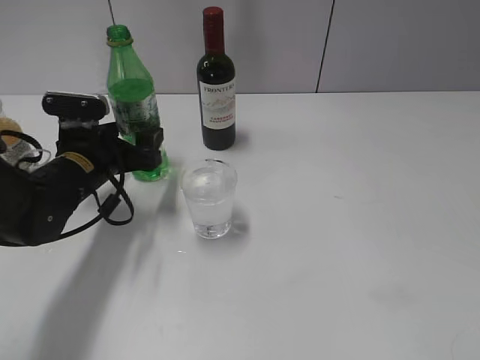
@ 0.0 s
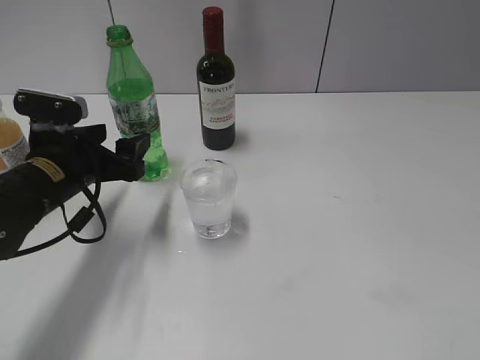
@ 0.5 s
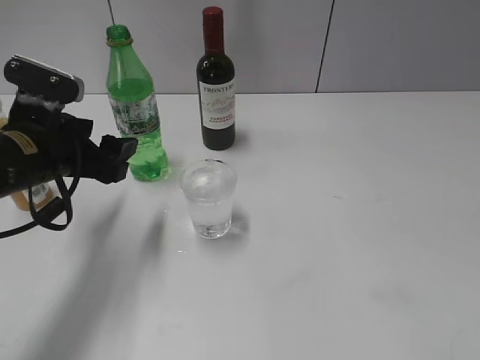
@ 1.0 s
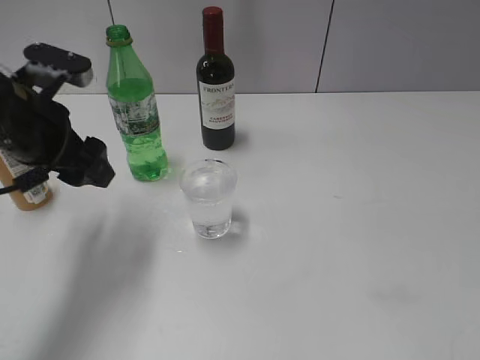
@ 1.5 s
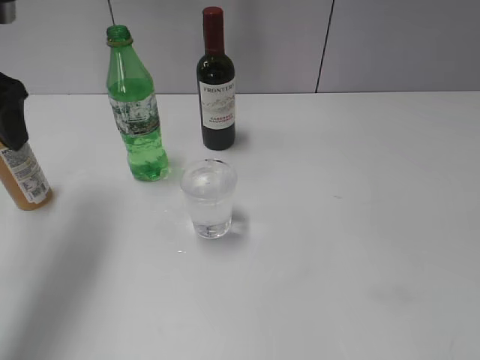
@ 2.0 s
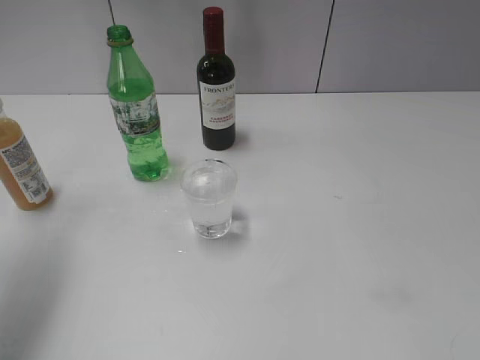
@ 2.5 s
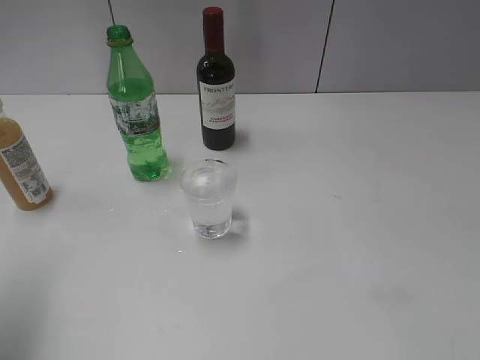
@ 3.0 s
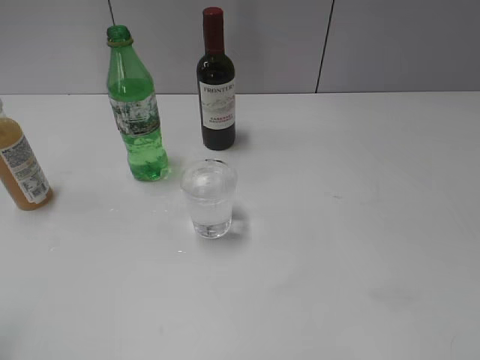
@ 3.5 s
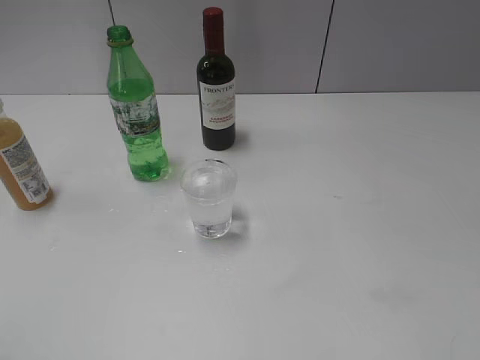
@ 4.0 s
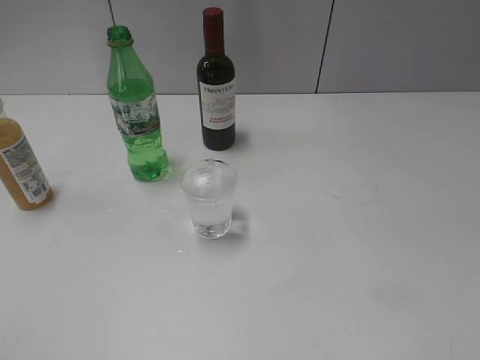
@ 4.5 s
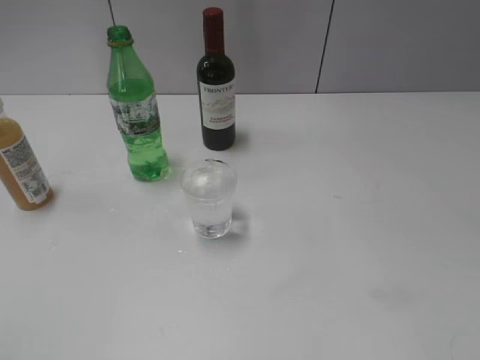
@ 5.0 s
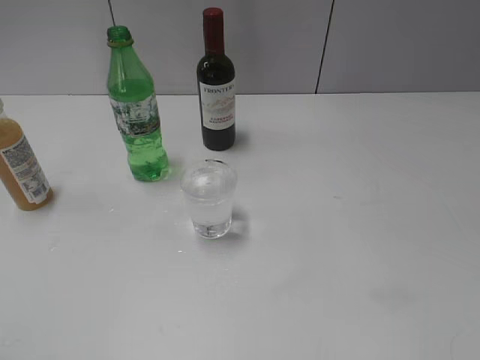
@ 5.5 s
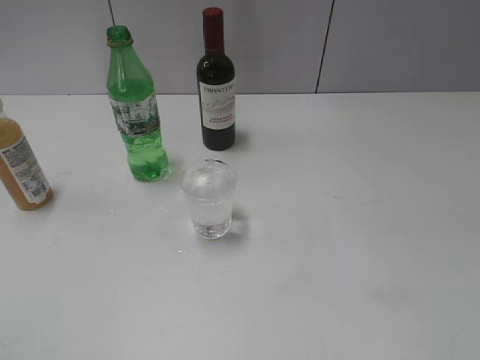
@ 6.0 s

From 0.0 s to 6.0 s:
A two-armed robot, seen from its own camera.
From 0.0 s to 2.0 s: The left gripper shifts about 20 cm upward.
From 2.0 s to 4.0 s: The left gripper heads backward, covering roughly 25 cm.

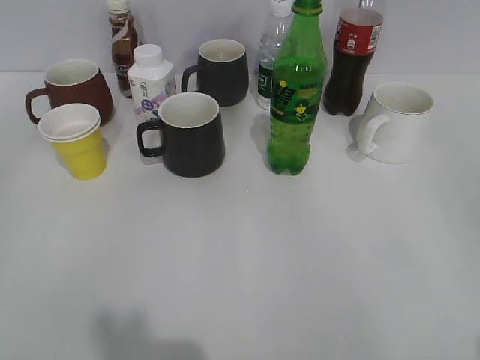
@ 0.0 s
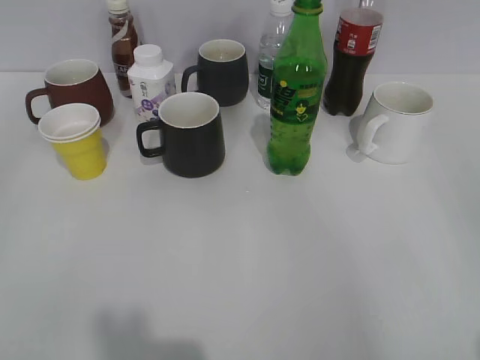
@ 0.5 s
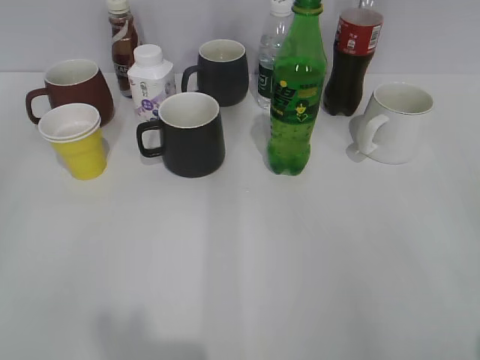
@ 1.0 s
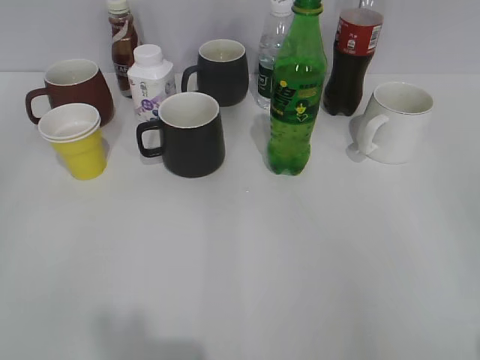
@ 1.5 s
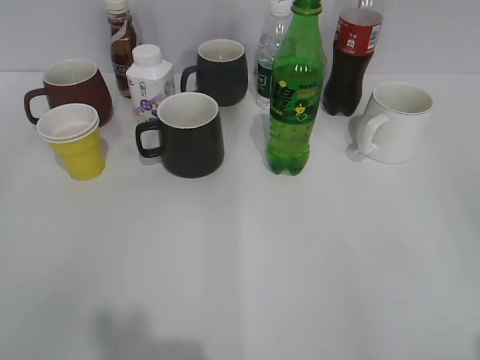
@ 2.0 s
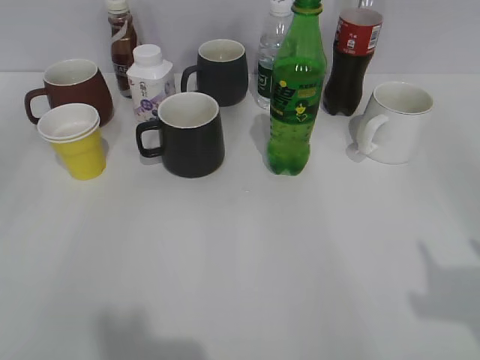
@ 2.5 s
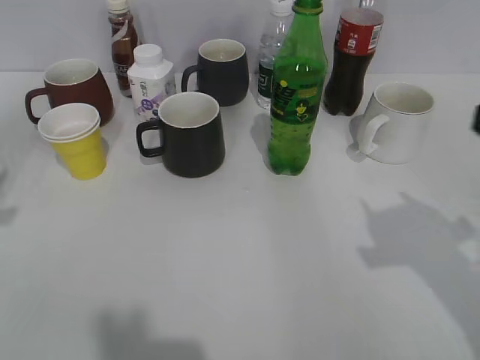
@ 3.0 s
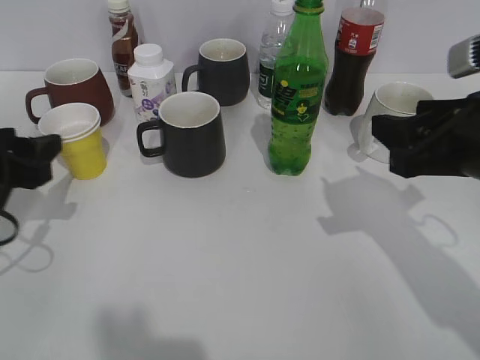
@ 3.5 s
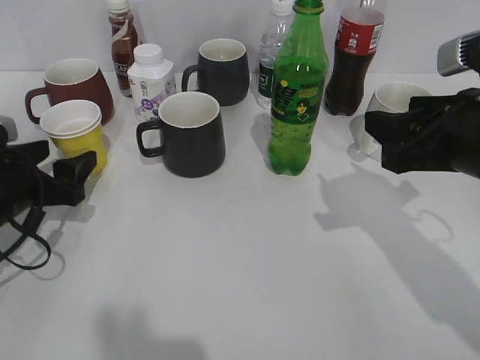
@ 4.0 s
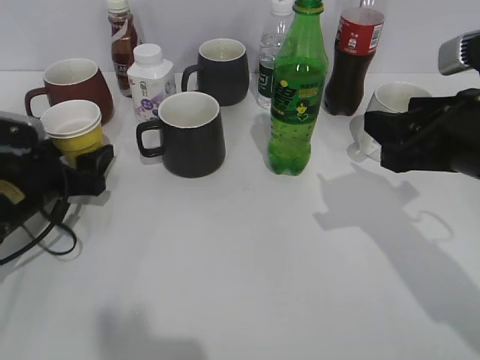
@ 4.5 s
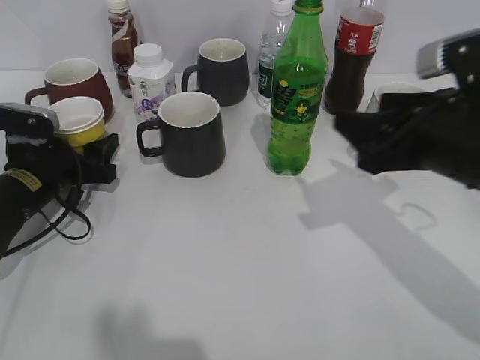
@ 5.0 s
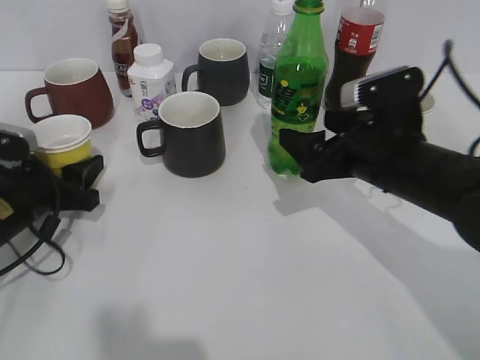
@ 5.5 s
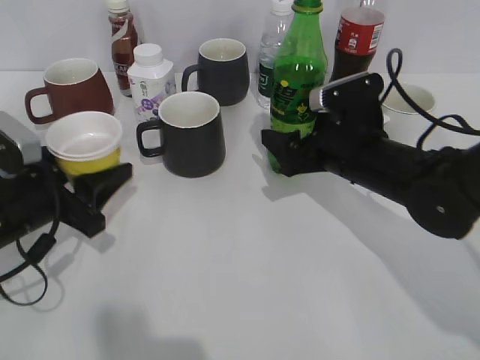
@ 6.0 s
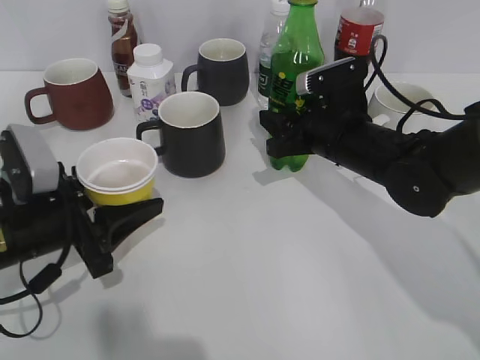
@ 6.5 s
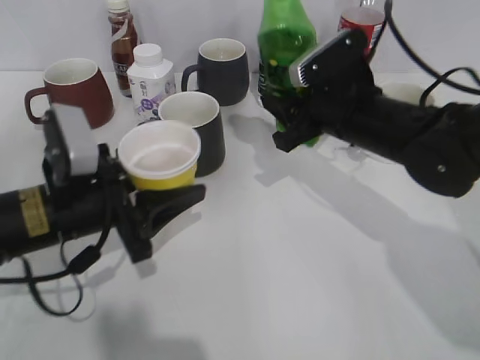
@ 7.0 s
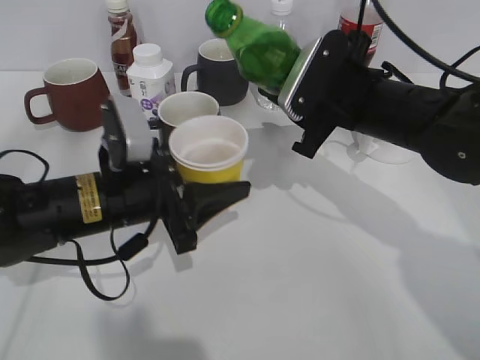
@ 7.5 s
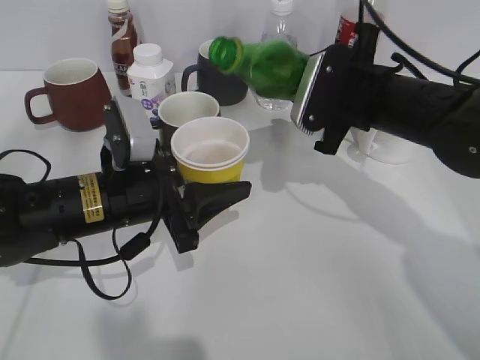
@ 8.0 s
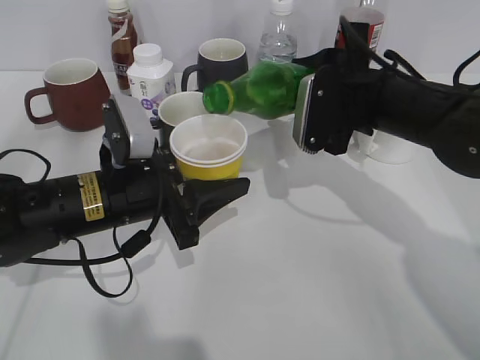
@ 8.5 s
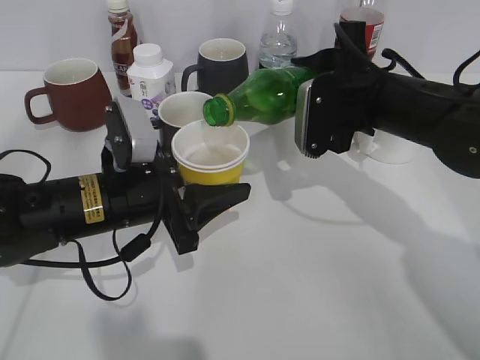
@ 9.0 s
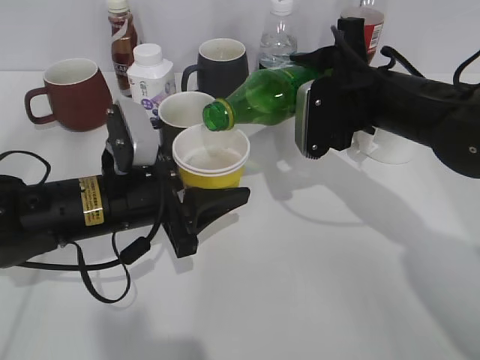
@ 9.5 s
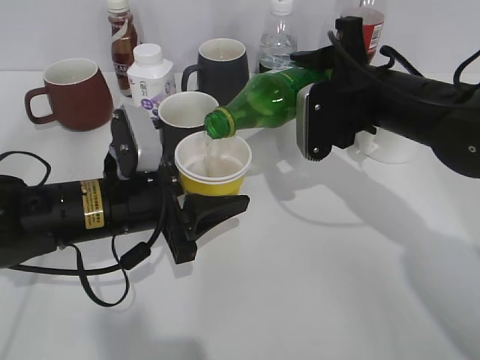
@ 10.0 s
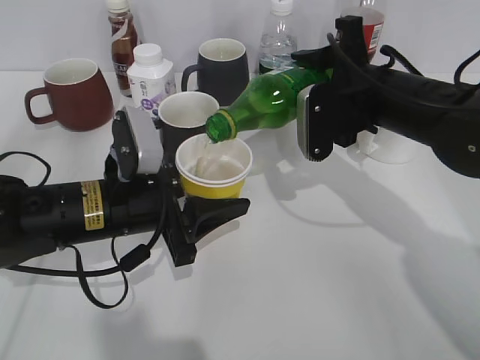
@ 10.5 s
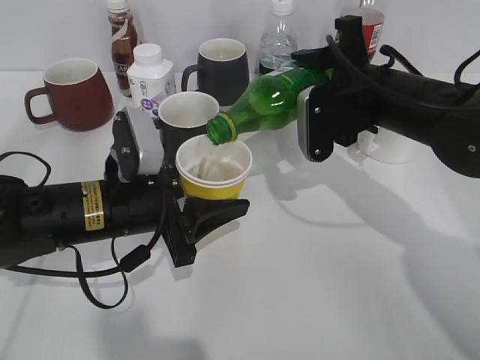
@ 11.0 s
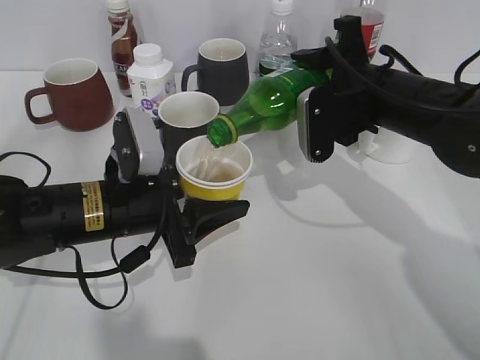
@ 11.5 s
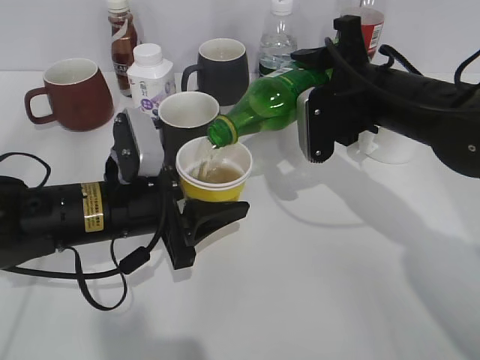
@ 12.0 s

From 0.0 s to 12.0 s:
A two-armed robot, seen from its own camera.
Step, from 2.0 s to 4.5 s: Grasp the yellow paper cup with left gripper.
Step, from 5.0 s to 6.0 s: Grasp the bottle with sprite with right gripper.
From 2.0 s to 4.0 s: The left gripper moves forward and downward, approximately 30 cm, and opens; the right gripper goes roughly 25 cm forward and to the left.
From 4.0 s to 6.0 s: The right gripper is displaced downward, forward and to the left by roughly 15 cm, and opens up; the left gripper moves about 5 cm forward and comes back, and closes up.
From 6.0 s to 8.0 s: The left gripper goes approximately 10 cm to the right; the right gripper is displaced upward by roughly 5 cm, and closes.
From 10.0 s to 12.0 s: Both grippers stay put.

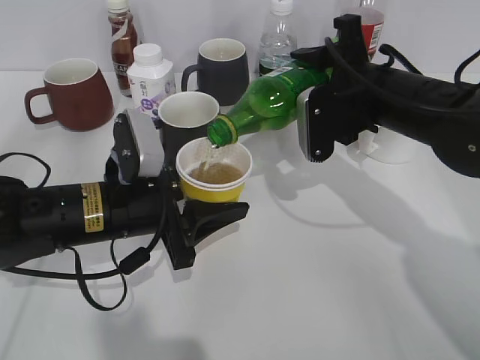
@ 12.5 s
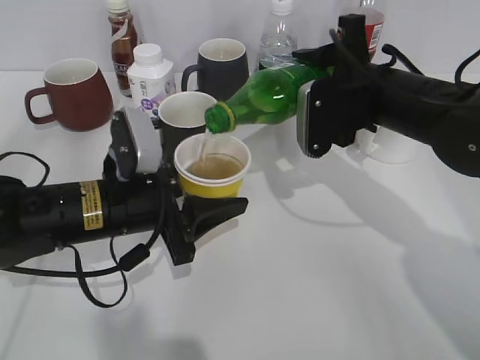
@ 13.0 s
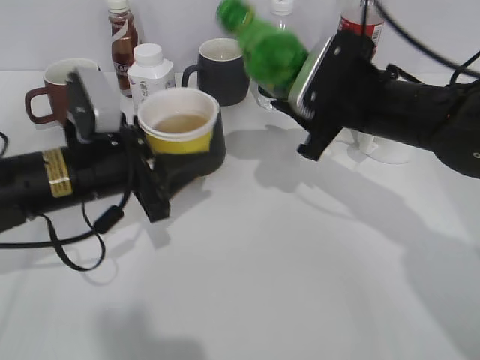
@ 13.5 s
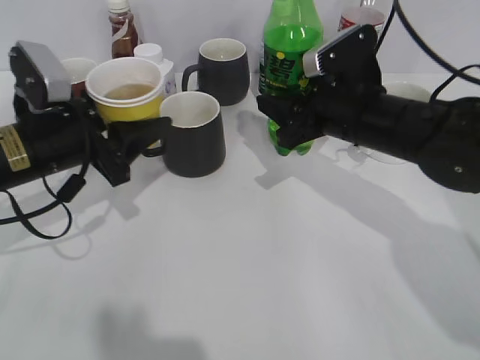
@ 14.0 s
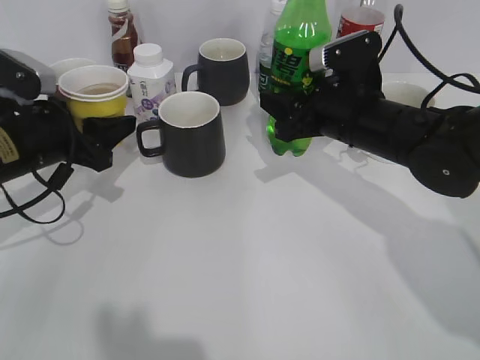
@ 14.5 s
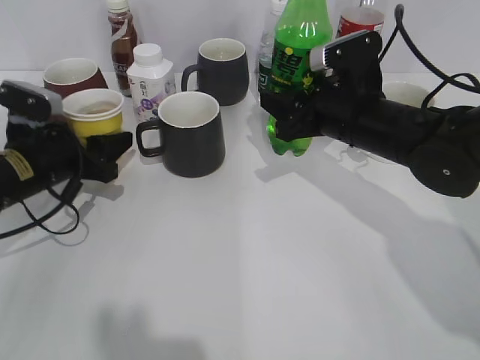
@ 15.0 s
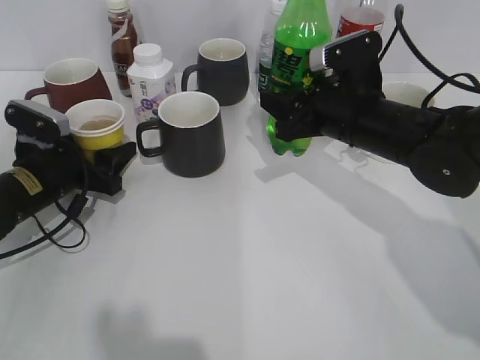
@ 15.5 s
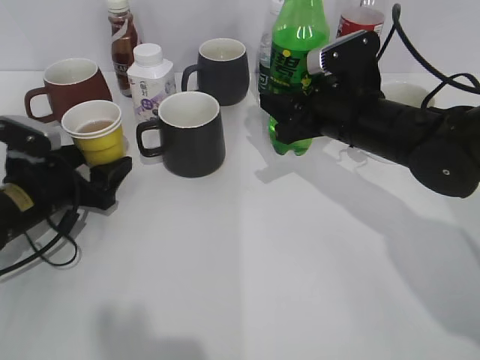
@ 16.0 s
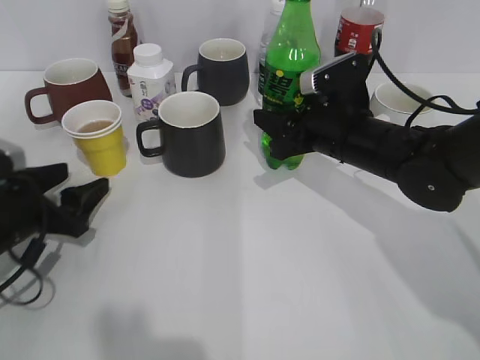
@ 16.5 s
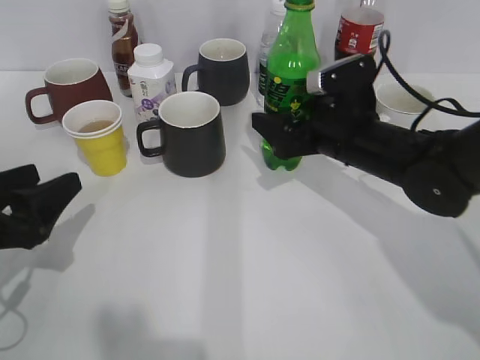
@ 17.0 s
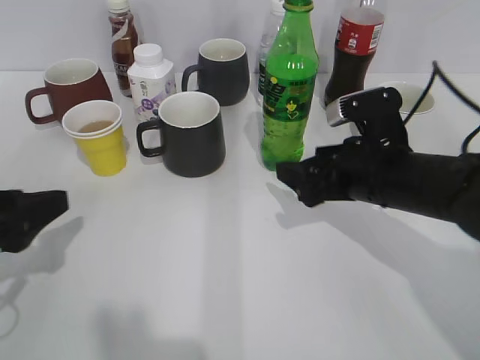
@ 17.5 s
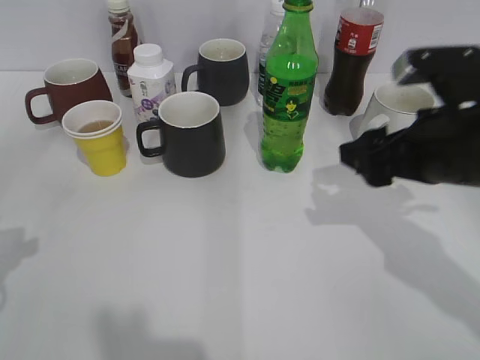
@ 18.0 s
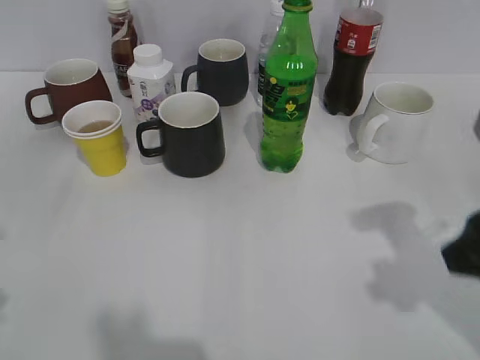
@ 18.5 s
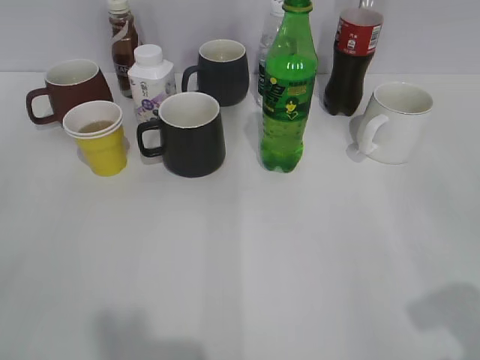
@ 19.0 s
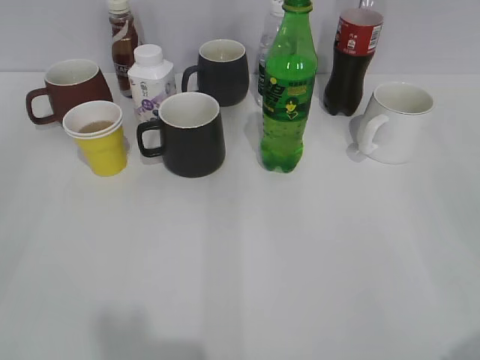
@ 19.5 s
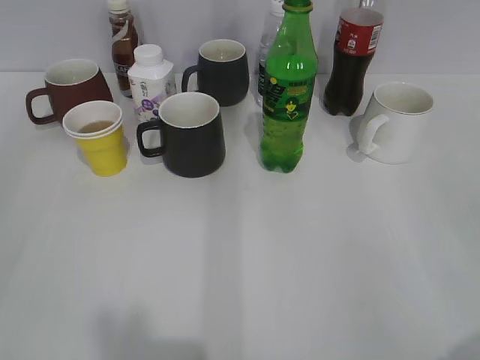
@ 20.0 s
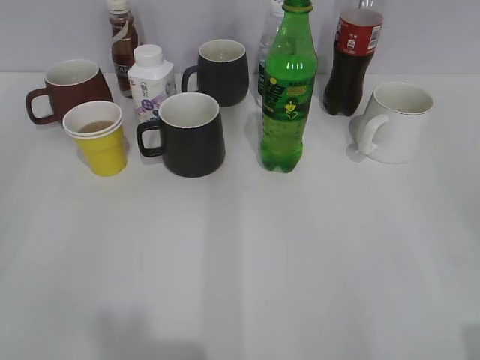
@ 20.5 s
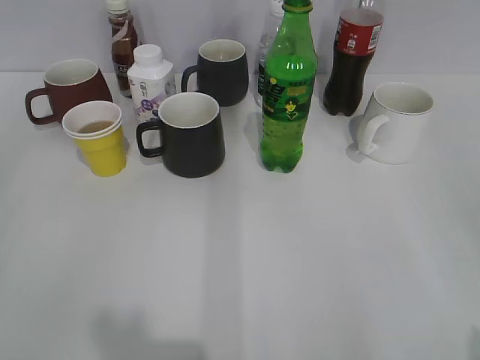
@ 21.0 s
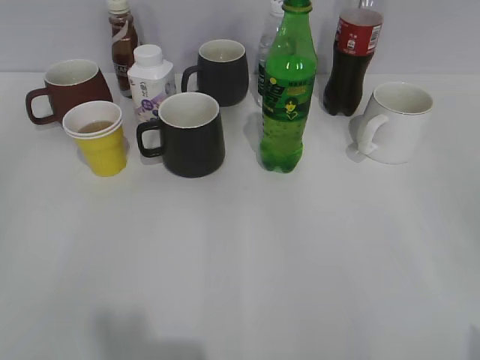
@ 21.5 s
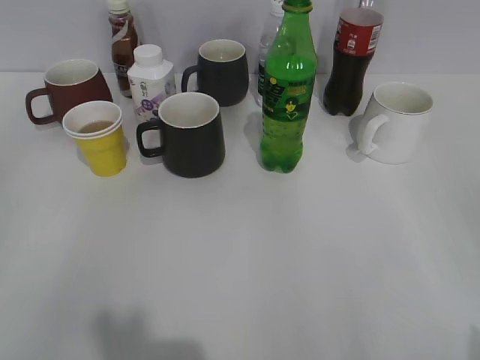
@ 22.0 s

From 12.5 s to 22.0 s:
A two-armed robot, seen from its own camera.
Step, from 13.5 s to 15.5 s: Place the yellow paper cup on the table with left gripper.
Step, from 16.0 s to 17.0 s: Place the sprite bottle on the table with right gripper.
From 12.5 s to 14.5 s: The left gripper goes about 10 cm to the left and forward.
From 14.5 s to 16.5 s: The left gripper shifts about 10 cm downward and backward, and opens.
From 16.5 s to 18.0 s: The right gripper heads backward, upward and to the right, covering some 15 cm, and opens its fingers. Meanwhile the left gripper is displaced upward and backward by roughly 15 cm.
From 18.0 s to 20.0 s: The right gripper shifts approximately 25 cm backward and to the right. The left gripper goes roughly 15 cm backward.
